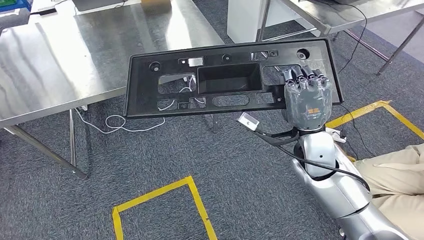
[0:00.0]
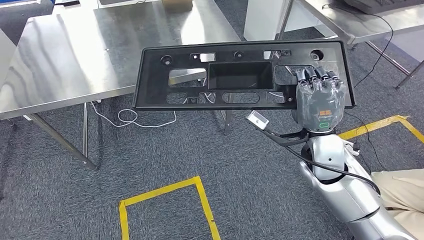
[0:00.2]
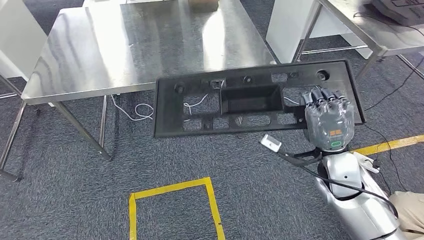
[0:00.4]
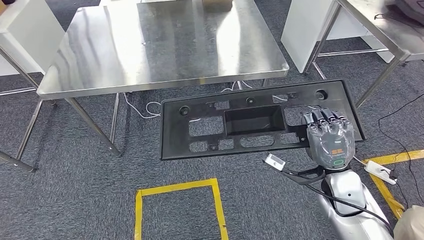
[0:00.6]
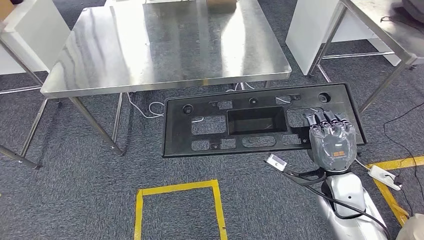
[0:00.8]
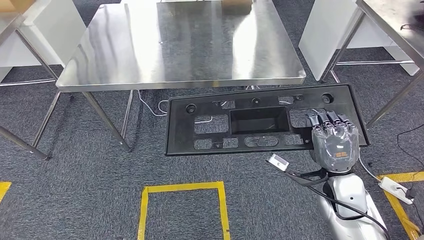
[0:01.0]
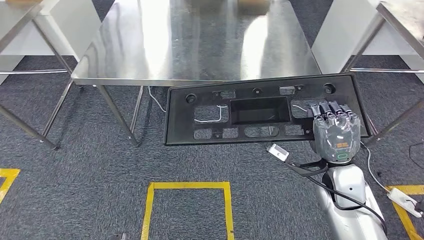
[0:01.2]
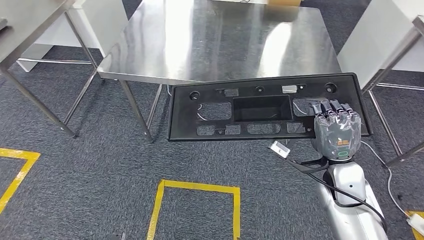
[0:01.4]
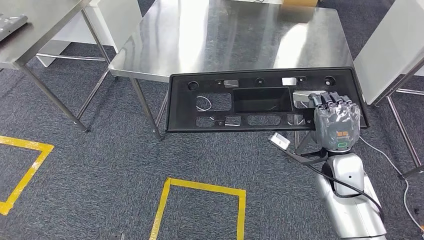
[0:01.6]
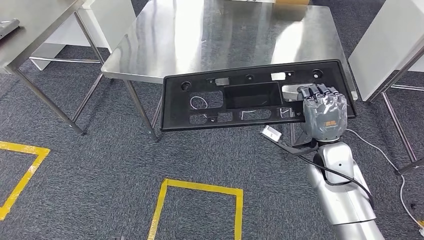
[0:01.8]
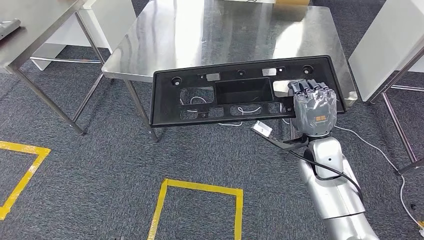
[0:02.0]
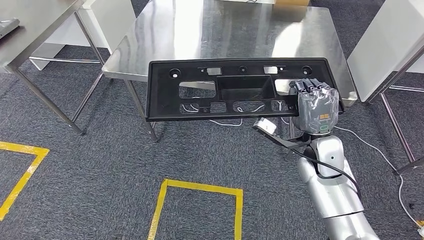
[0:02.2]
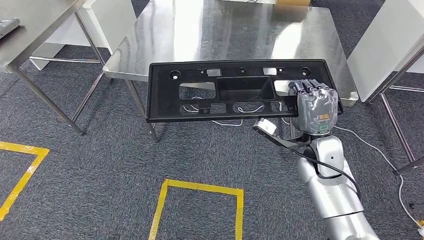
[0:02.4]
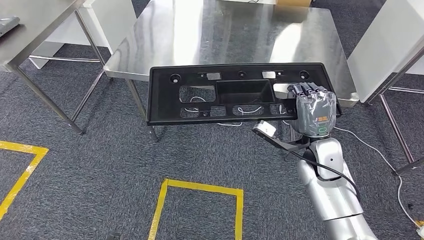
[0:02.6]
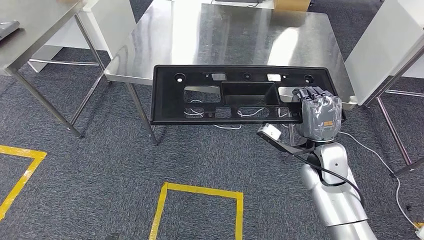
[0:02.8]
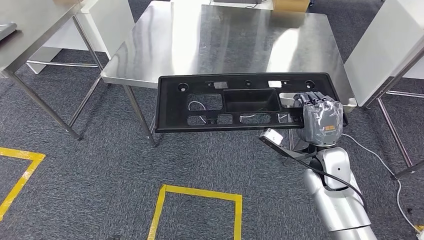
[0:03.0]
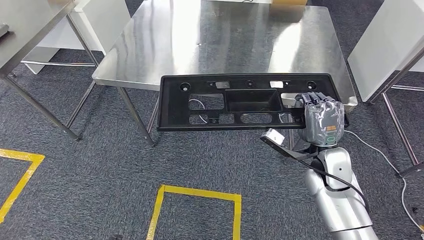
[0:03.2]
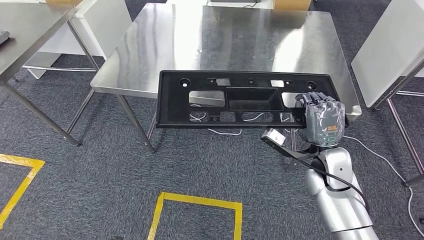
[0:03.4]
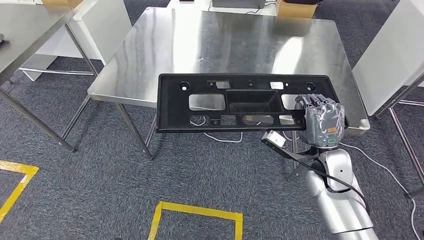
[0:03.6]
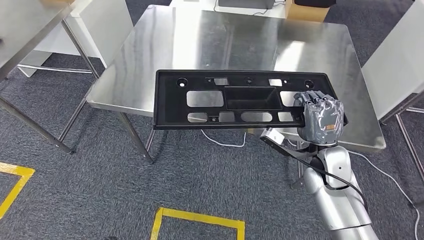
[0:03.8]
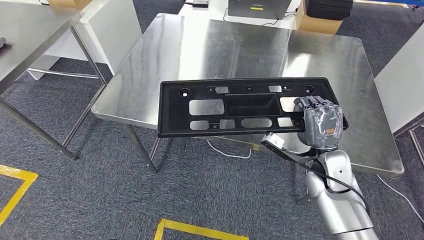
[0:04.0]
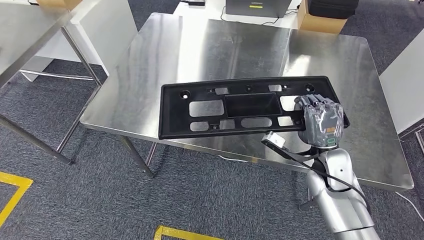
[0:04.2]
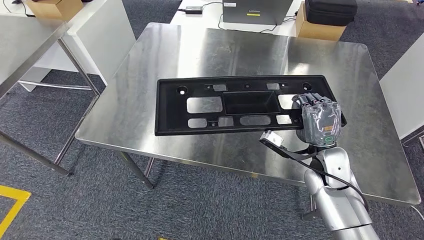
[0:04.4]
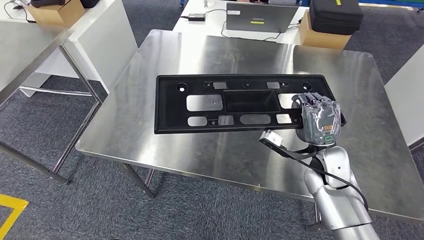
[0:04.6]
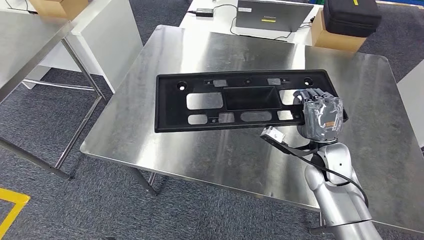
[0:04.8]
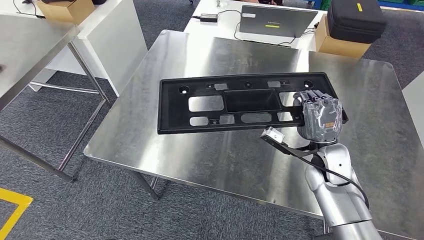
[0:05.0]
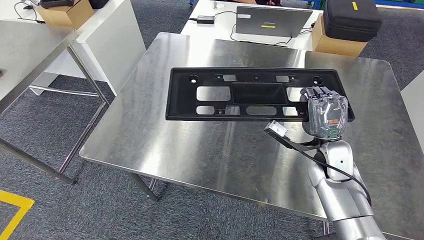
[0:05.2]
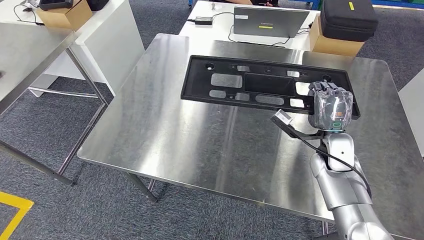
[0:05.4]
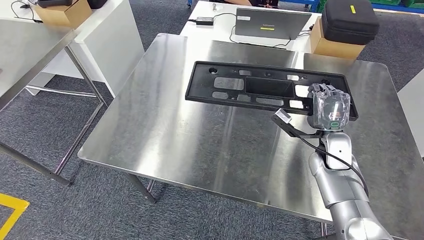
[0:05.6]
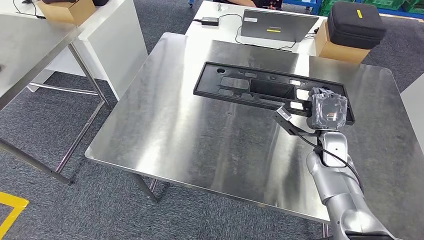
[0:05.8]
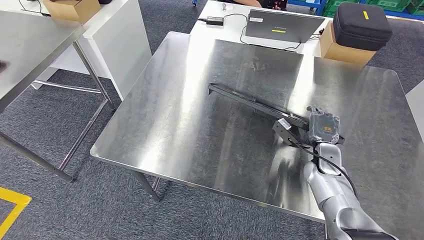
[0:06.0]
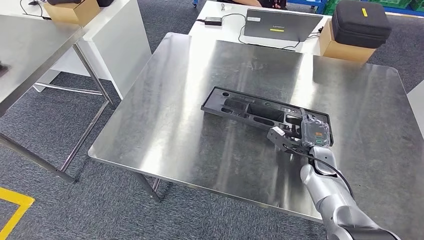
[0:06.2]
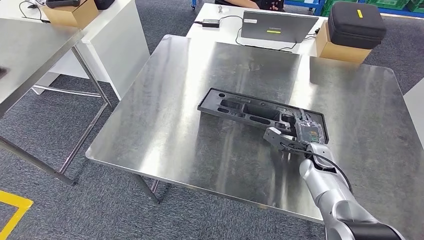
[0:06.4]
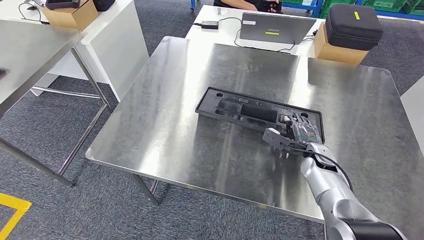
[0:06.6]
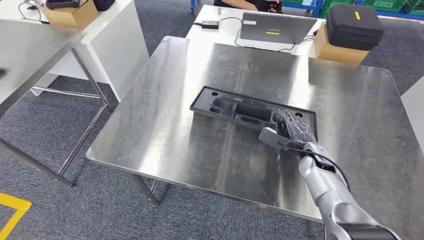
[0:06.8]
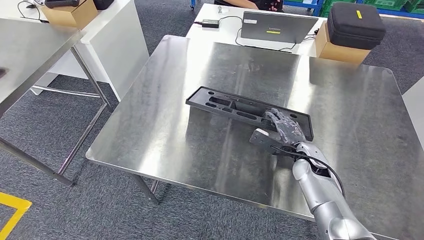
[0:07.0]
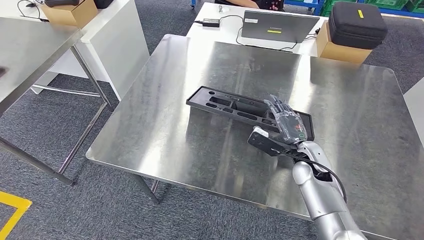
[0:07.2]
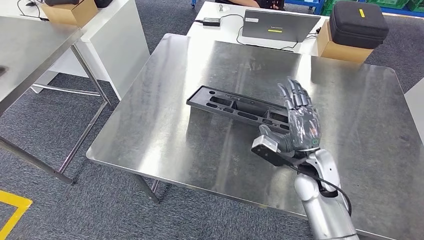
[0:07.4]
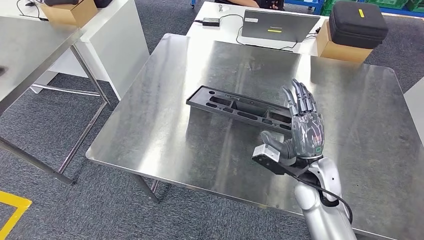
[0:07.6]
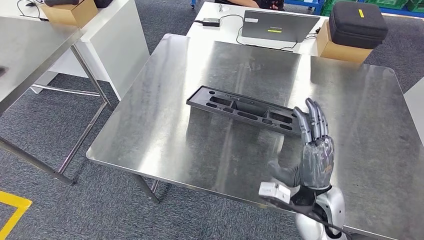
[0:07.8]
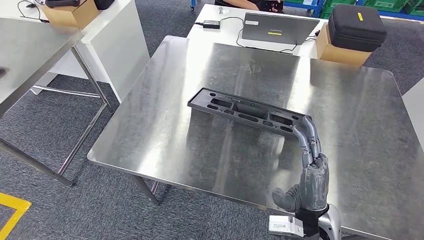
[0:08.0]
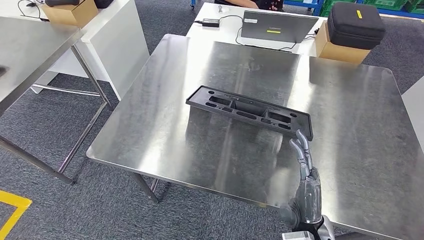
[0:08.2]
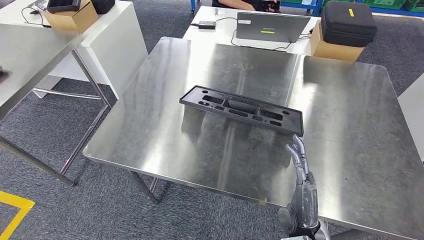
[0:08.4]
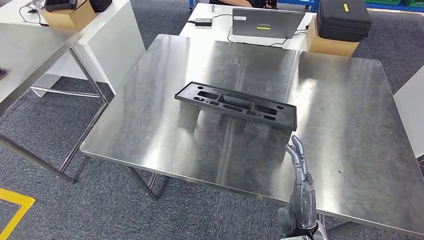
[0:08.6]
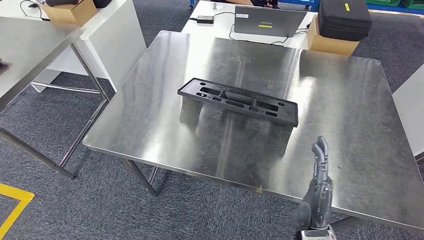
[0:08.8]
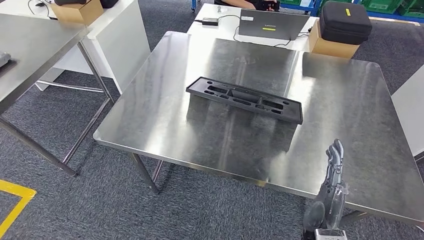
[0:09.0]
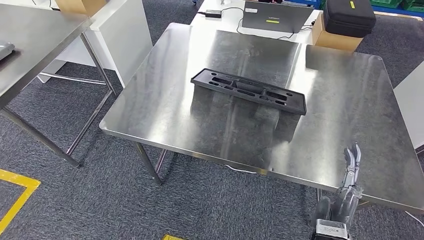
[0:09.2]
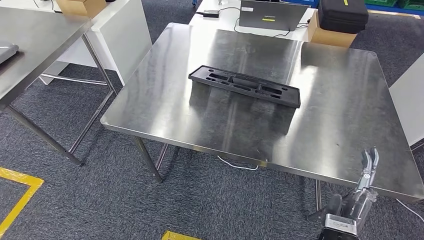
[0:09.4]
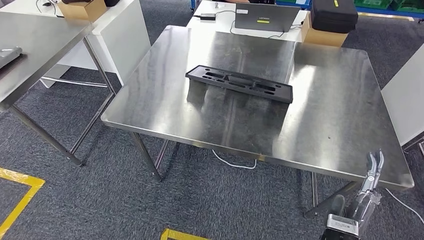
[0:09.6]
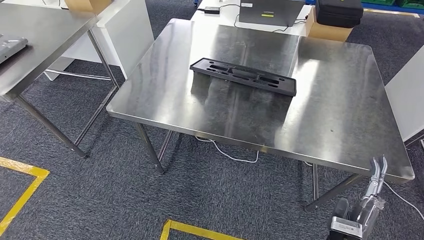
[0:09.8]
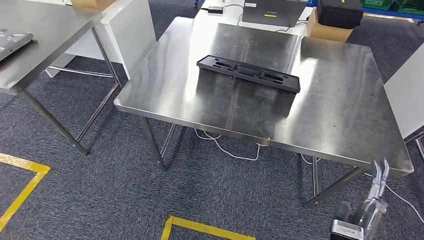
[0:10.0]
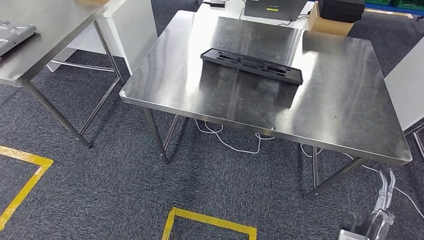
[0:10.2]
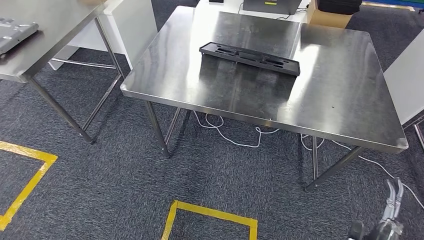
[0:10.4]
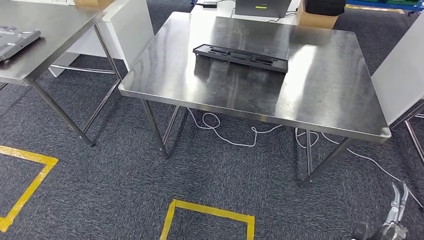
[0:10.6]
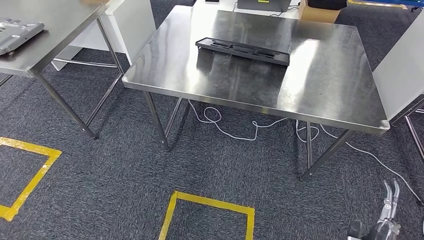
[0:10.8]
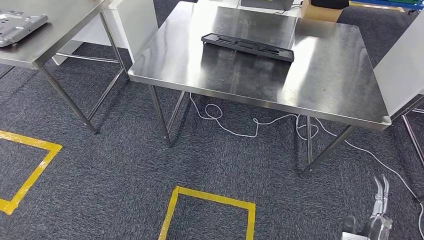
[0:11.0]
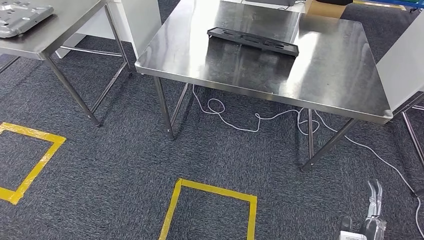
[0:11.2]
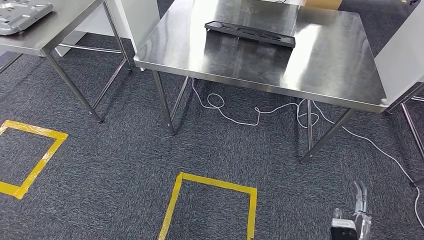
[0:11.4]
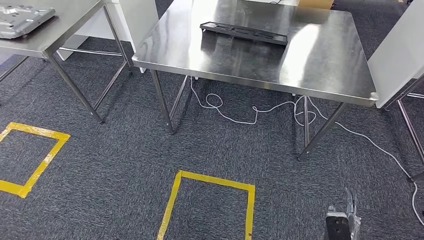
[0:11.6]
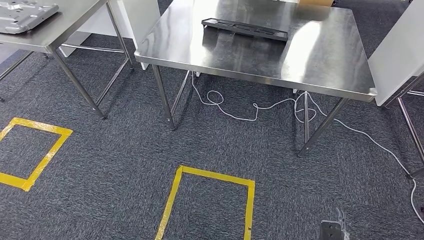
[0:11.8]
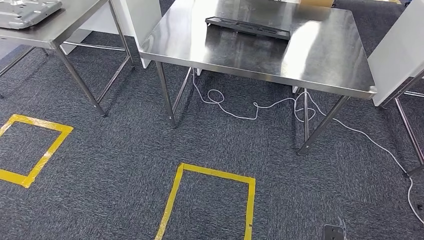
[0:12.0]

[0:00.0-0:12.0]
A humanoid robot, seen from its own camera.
Step, 0.0 to 6.2 s: Insert the large material into the corresponding hole on the workbench.
6.0 to 7.6 s: The right hand heads backward, to the left and upward, covering some 15 cm.

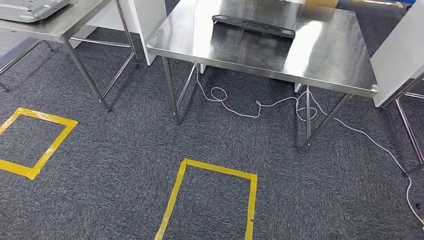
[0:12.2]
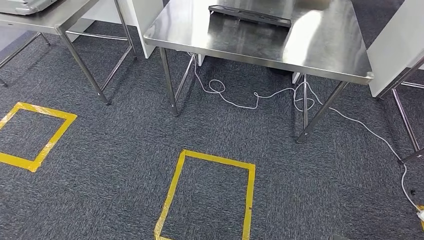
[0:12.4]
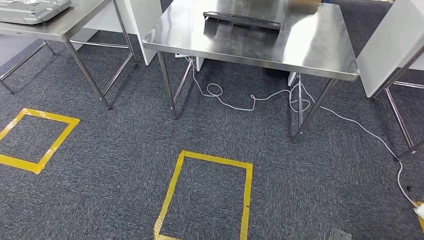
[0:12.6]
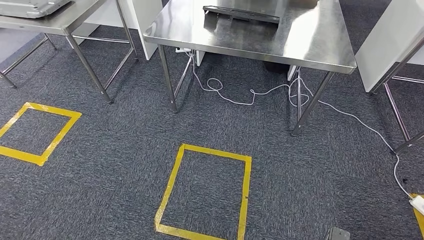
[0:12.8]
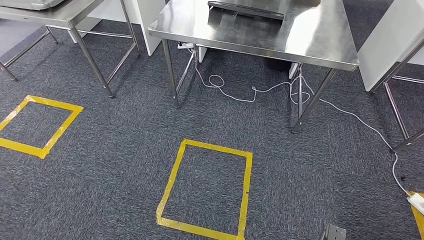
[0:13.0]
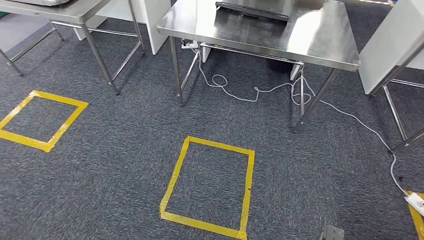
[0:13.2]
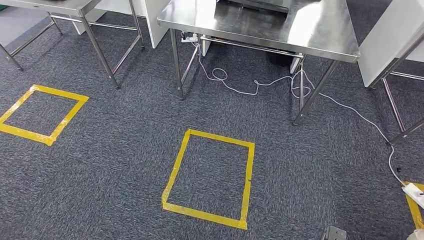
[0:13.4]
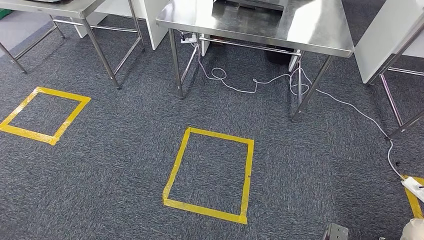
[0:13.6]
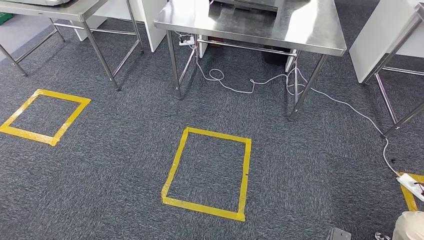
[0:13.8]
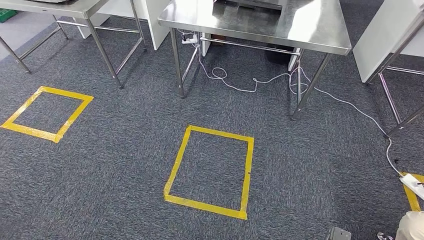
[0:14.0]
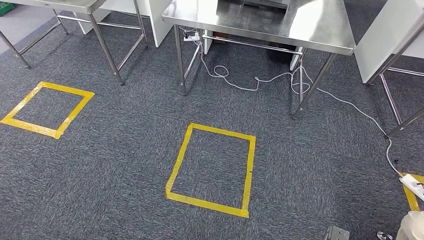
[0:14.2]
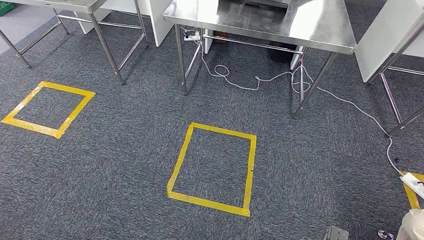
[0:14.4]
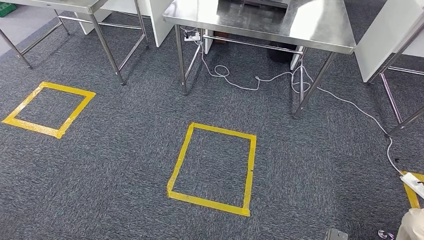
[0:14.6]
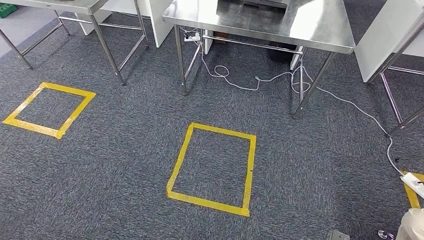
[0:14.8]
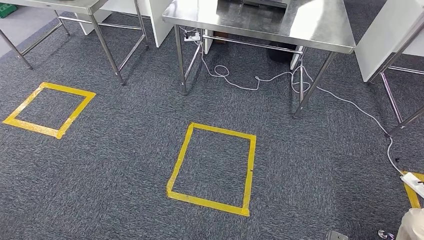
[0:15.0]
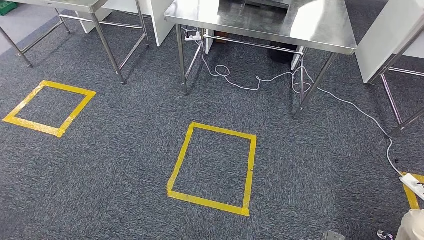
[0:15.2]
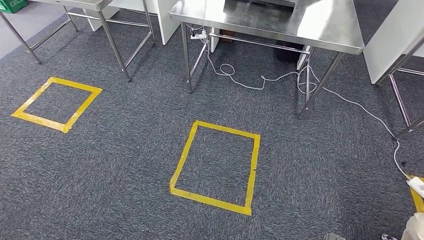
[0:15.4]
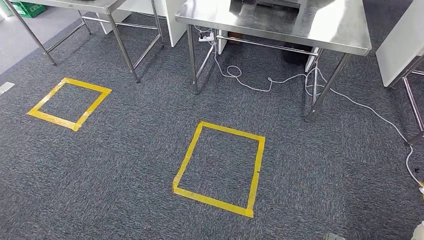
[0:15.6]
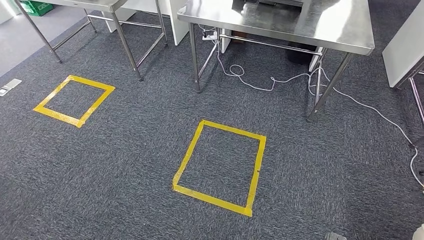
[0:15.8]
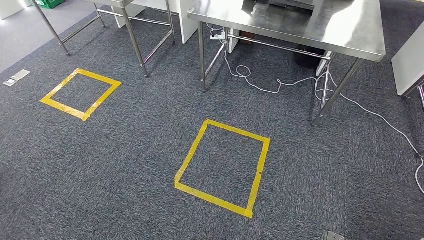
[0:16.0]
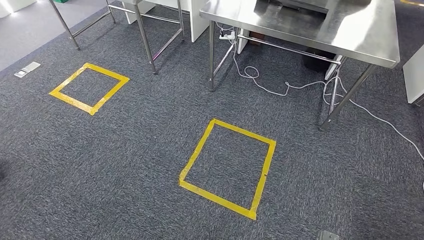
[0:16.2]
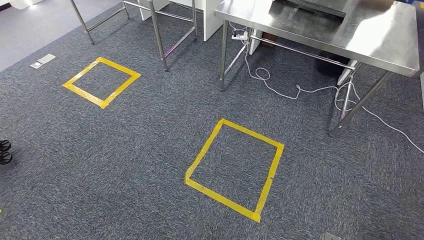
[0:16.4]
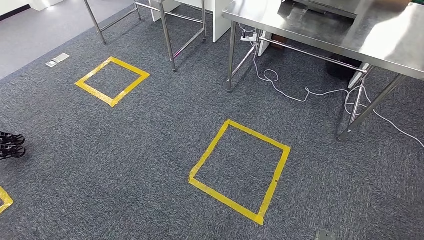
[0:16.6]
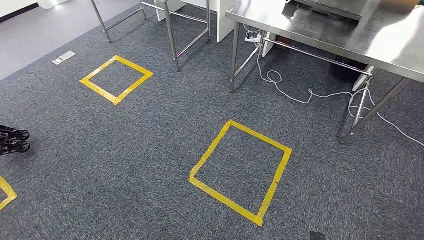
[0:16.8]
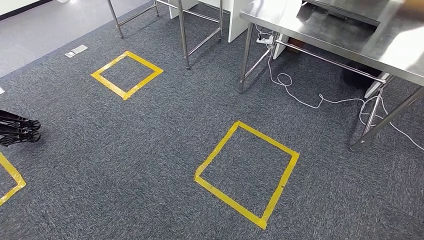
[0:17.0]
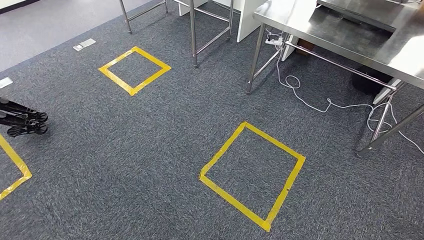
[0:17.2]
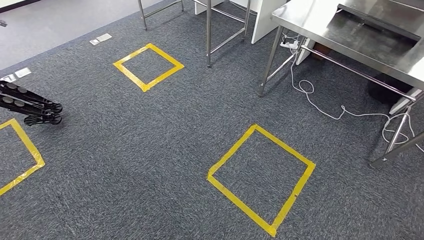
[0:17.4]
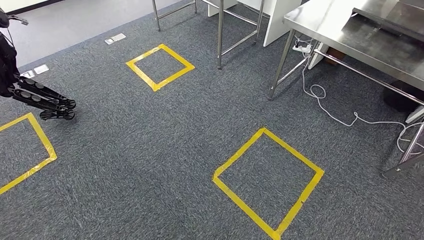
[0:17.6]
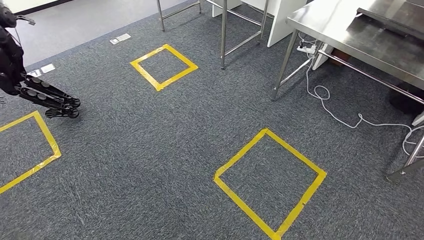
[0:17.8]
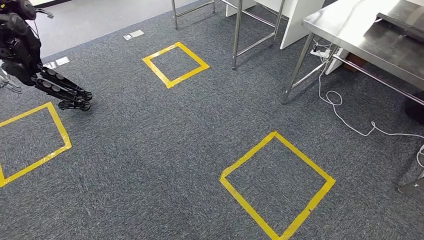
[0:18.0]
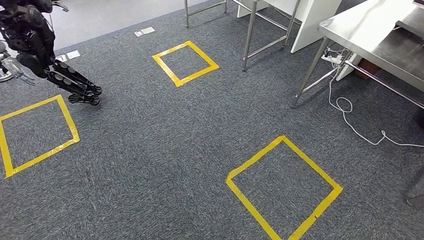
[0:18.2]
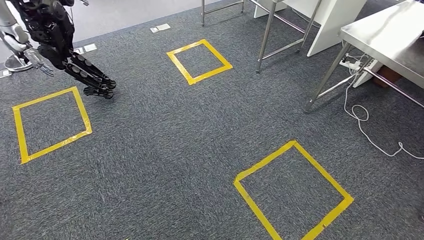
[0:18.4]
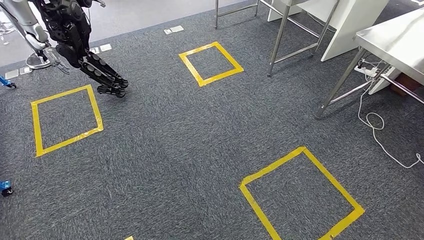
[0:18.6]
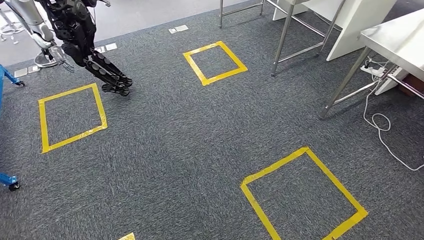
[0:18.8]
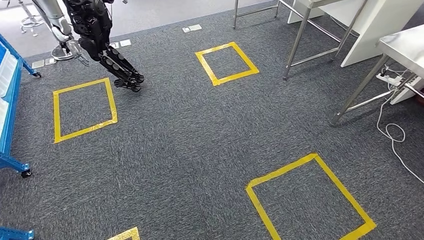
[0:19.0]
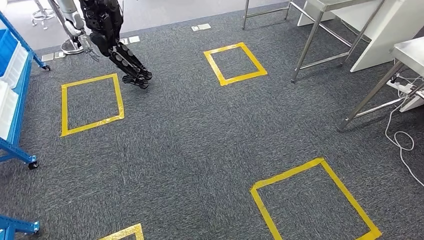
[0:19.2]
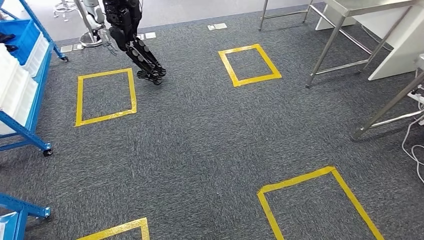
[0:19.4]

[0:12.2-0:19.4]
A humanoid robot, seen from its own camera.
13.6 to 15.0 s: The hands stay close to where they were, moving slightly.
